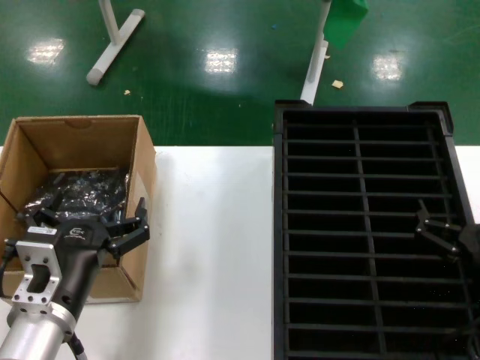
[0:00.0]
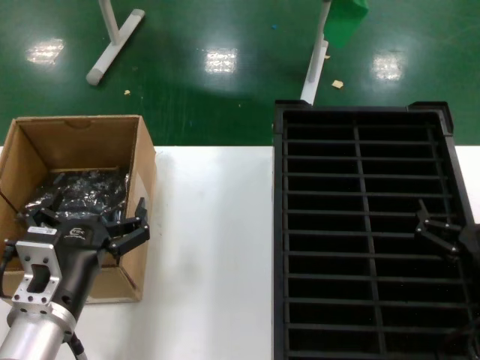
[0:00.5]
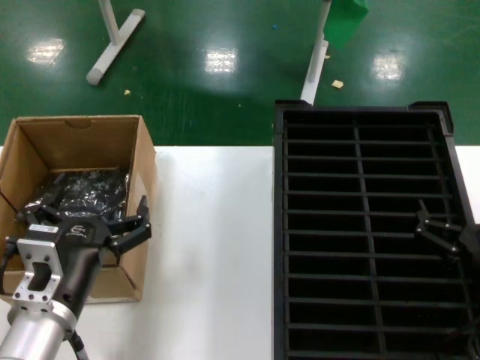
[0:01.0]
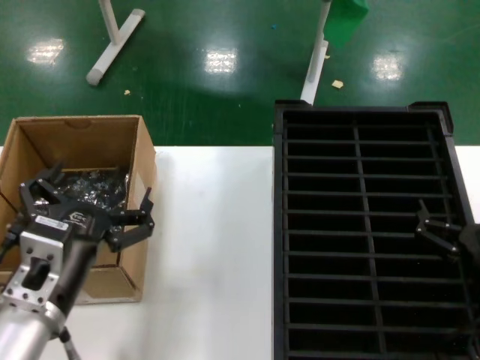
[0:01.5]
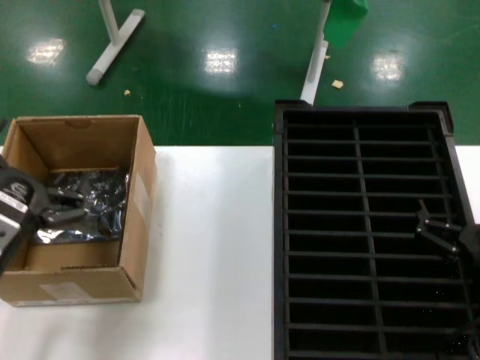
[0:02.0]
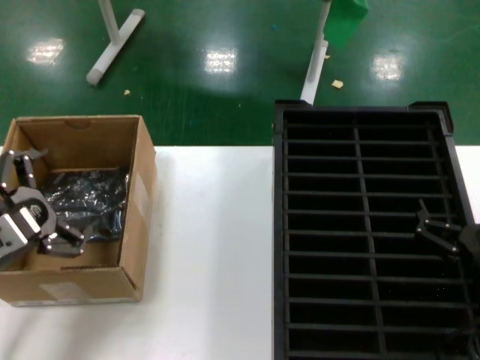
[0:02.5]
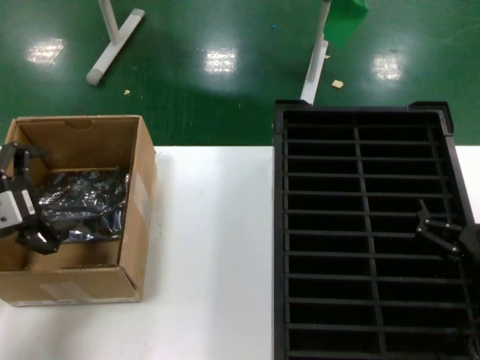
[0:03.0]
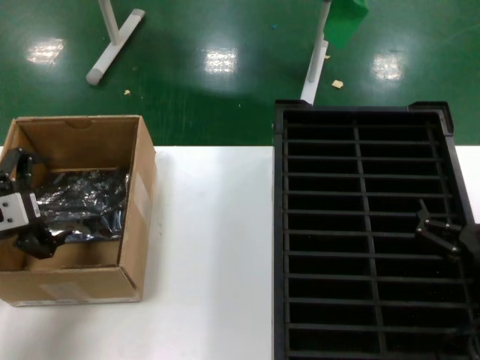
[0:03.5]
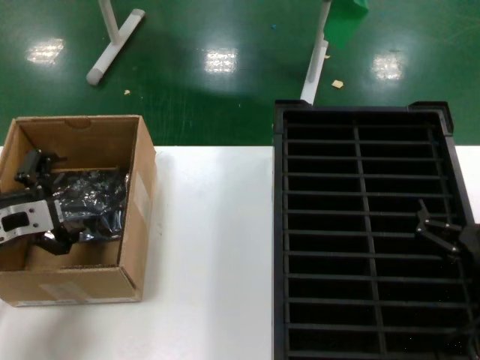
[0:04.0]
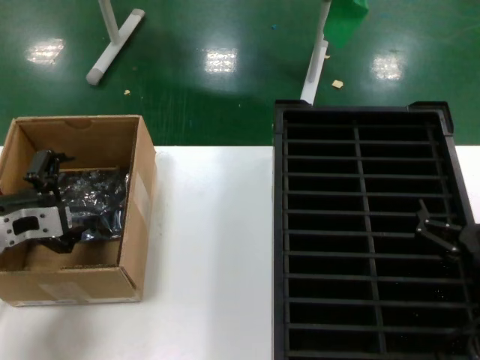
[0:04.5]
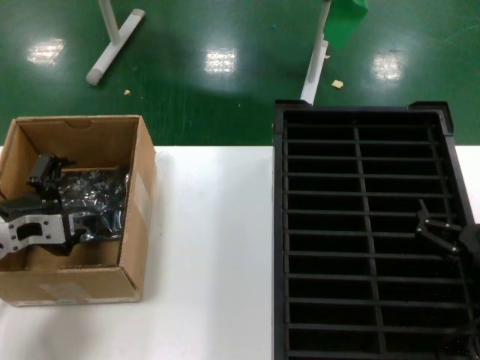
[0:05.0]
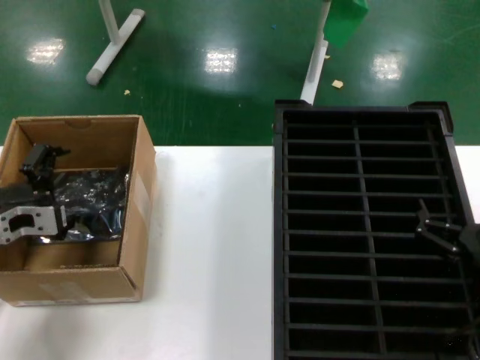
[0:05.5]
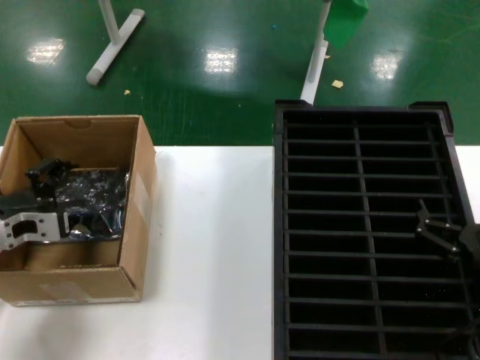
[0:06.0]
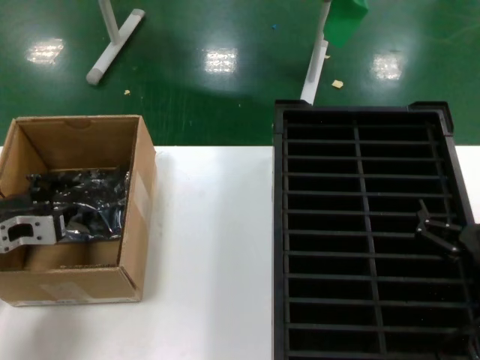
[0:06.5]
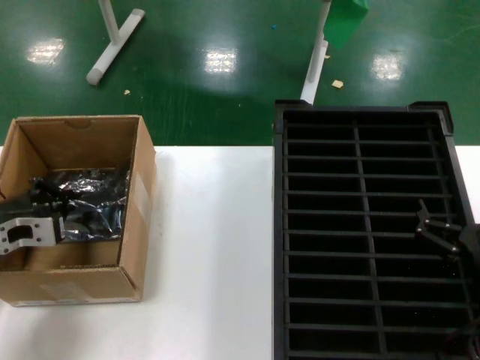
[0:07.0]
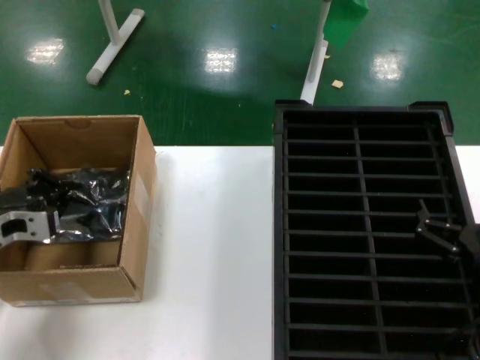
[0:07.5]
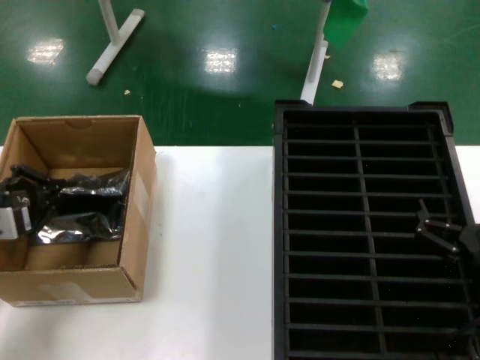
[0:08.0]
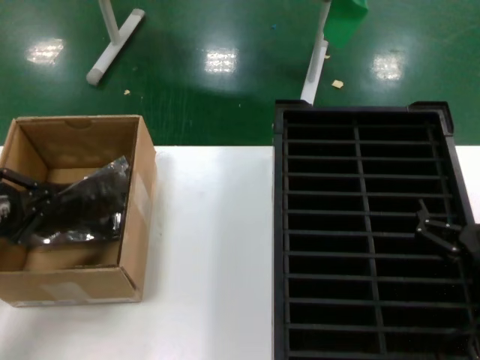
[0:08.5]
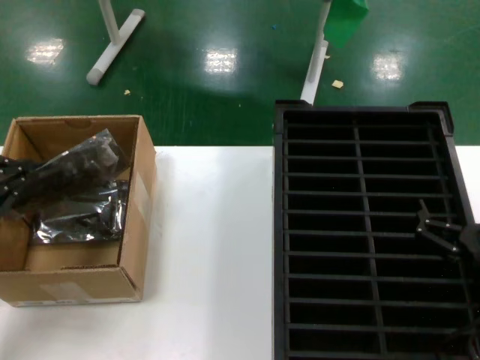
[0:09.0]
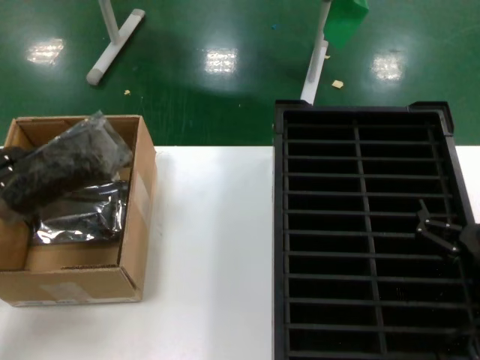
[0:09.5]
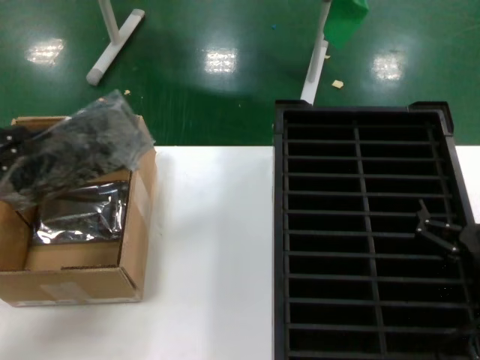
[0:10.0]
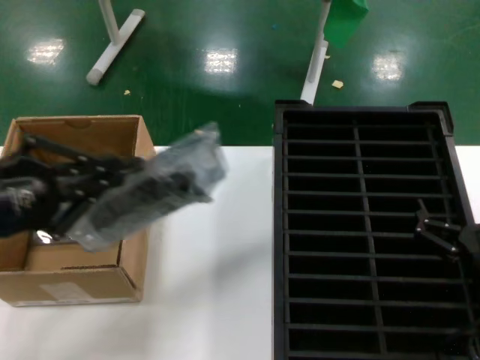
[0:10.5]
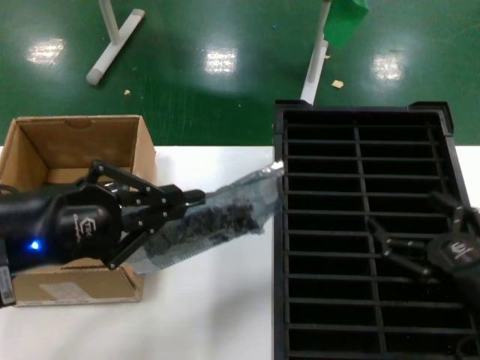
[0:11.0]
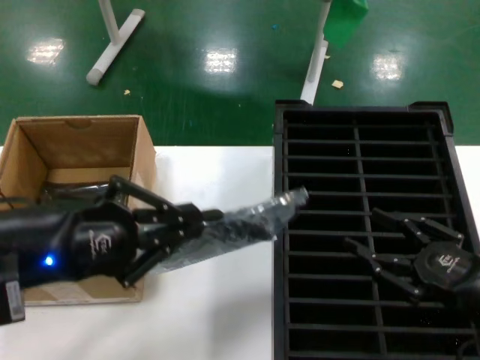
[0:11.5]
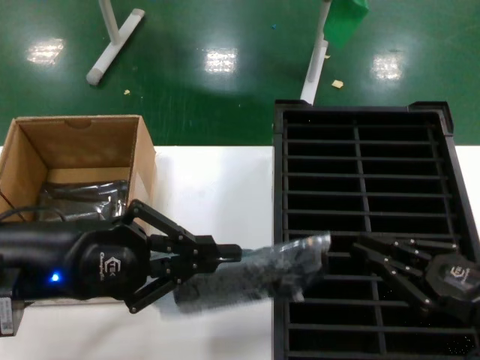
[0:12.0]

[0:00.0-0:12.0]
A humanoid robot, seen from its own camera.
Task of the whole recording: take out graphics card from box remove packaging put into black container.
Step, 0:00.0 to 0:07.0: Grasp the bag.
Step, 0:07.5 to 0:10.5: Lift the bag.
0:00.0 to 0:02.0: The left hand shifts approximately 10 cm upward and to the left.
0:02.0 to 0:04.0: The left hand moves forward and to the left, approximately 15 cm.
0:04.0 to 0:06.0: The hands stay close to where they were, moving slightly.
0:06.0 to 0:08.0: The left hand changes place by some 5 cm.
0:08.0 to 0:10.0: The left hand shifts about 15 cm upward, backward and to the left.
0:10.0 to 0:12.0: The right hand heads to the right, covering some 10 cm. Meanwhile the left hand travels to the right by roughly 15 cm.

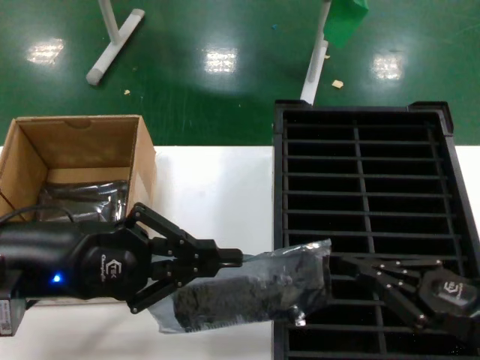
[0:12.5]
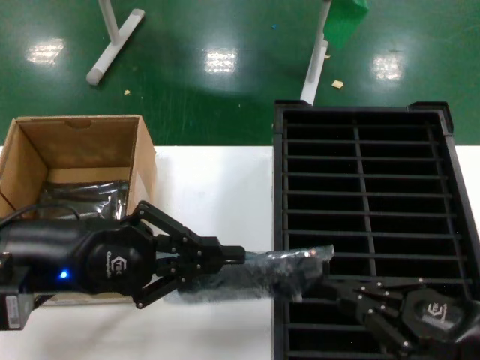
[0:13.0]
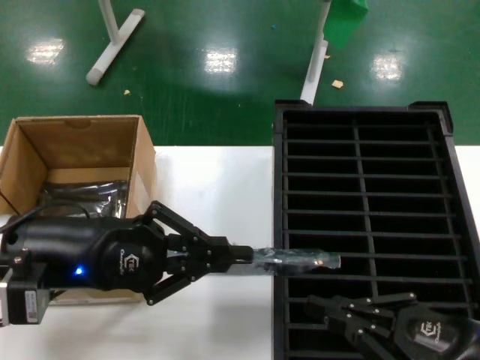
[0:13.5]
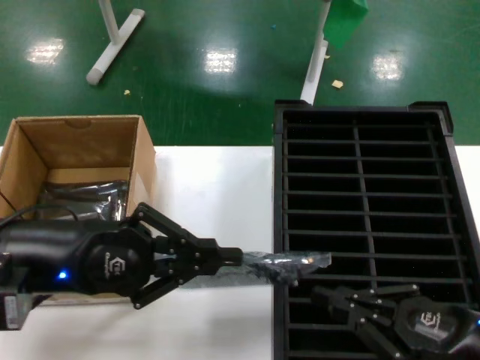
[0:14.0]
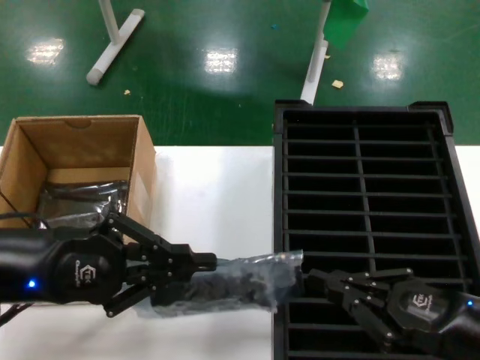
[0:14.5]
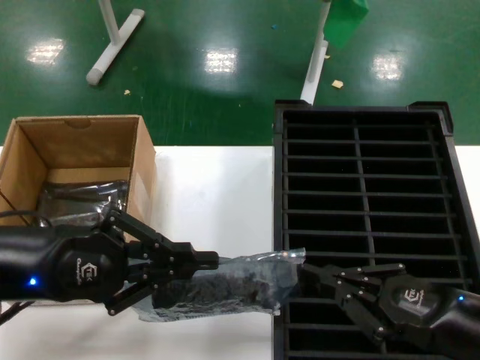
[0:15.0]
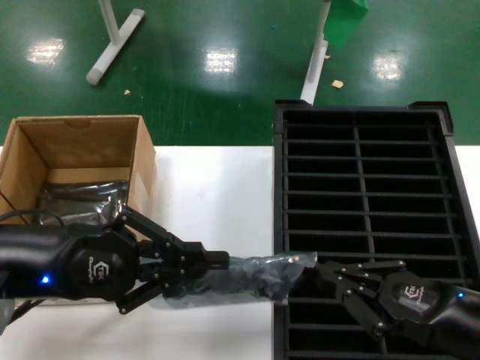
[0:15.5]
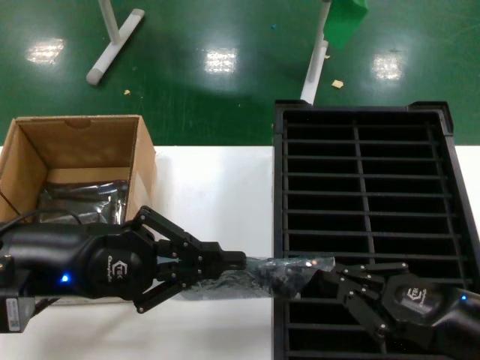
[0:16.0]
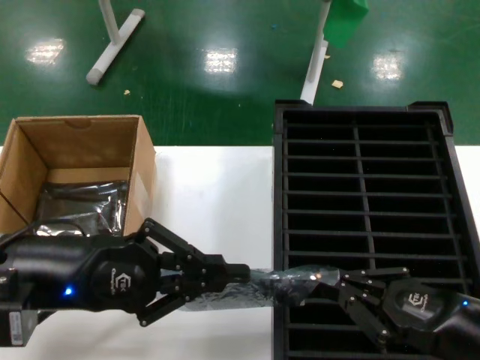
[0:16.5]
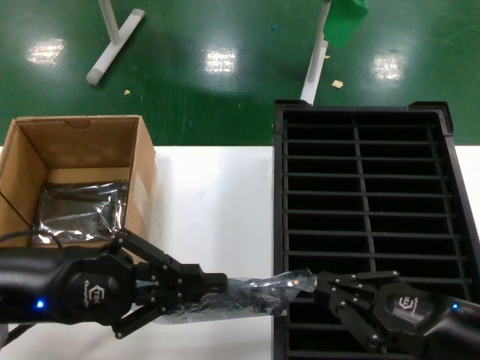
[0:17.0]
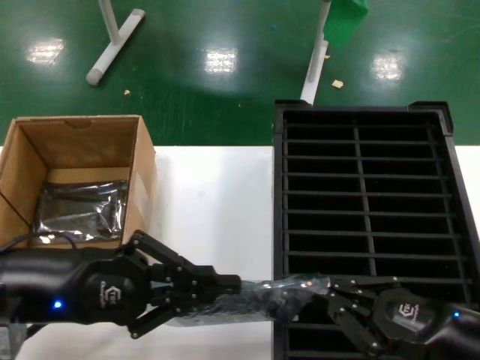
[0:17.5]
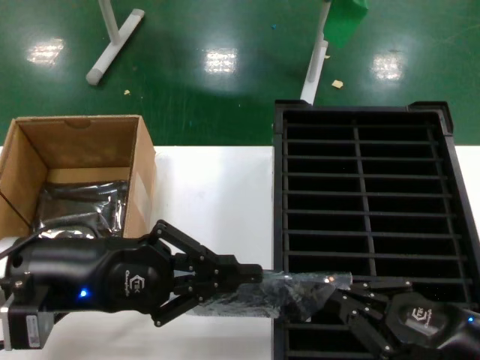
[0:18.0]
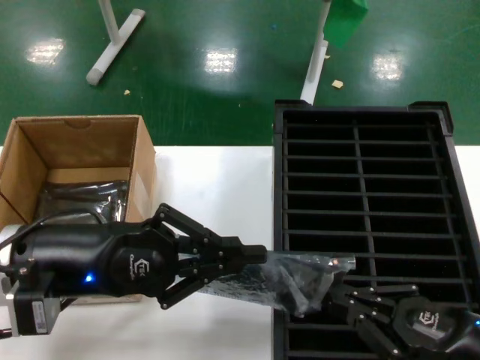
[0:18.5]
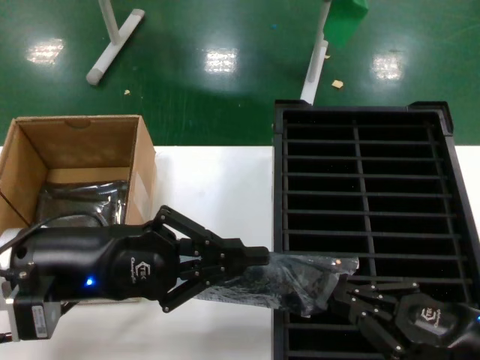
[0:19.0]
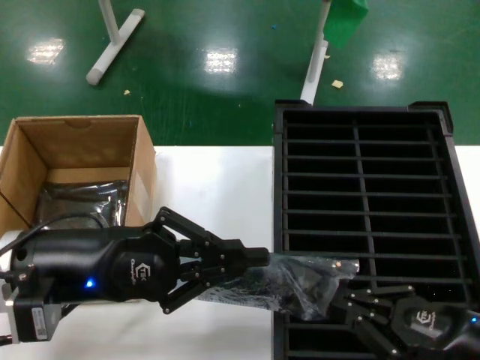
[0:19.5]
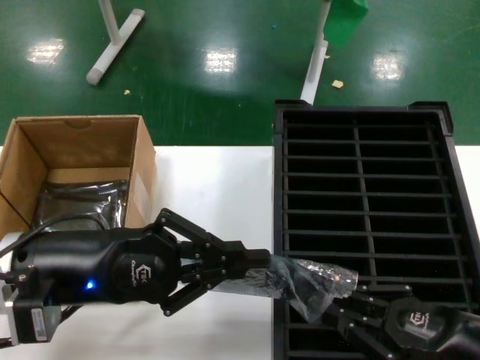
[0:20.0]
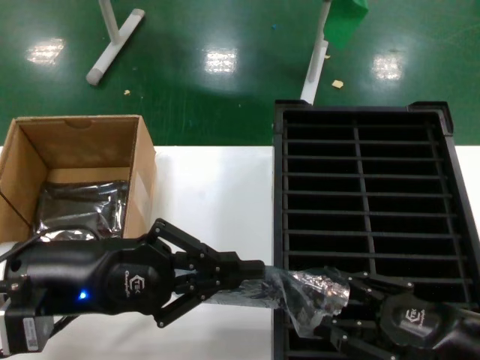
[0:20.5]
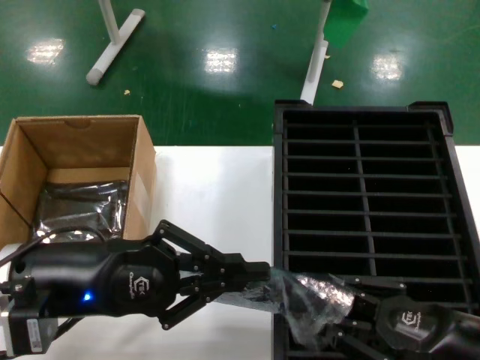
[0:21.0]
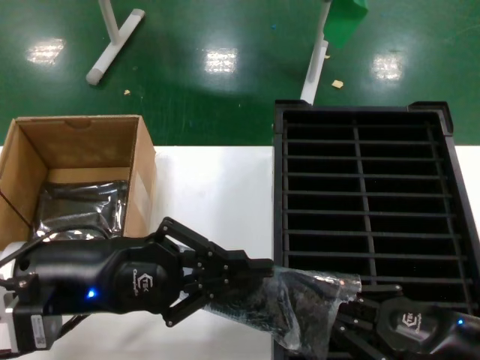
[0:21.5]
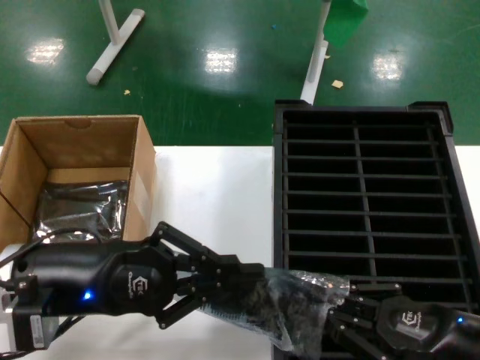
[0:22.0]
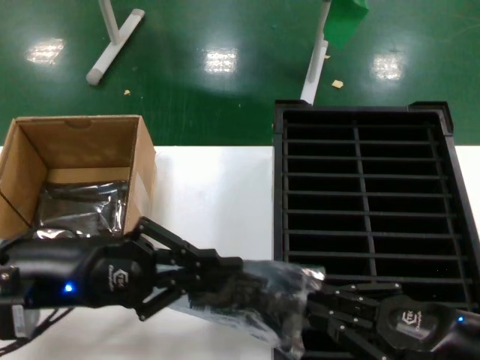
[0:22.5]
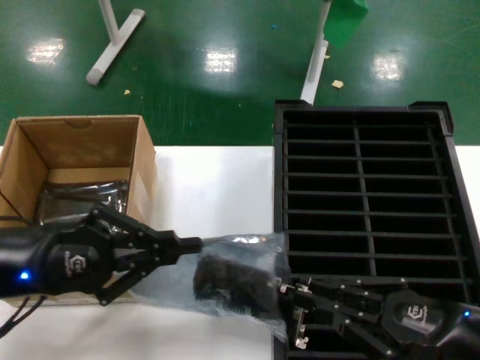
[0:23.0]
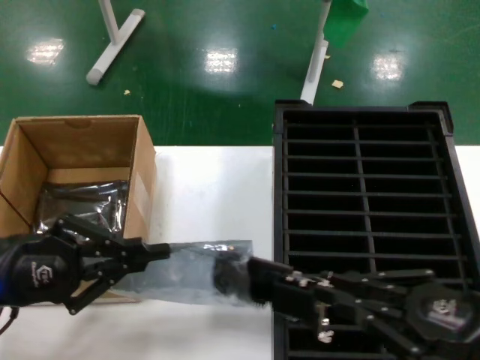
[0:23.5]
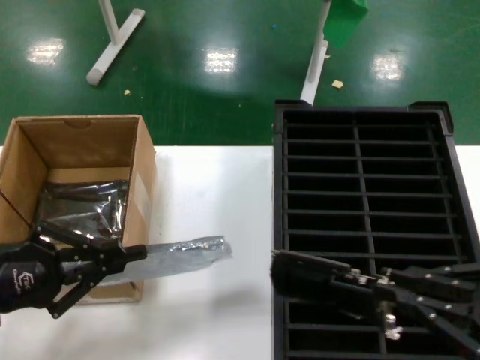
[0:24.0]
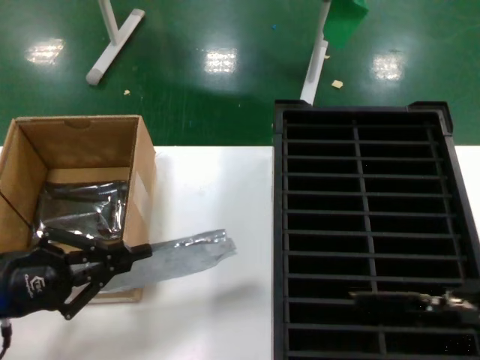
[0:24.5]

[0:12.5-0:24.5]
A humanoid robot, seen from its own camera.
Task of the whole recording: take out graphics card from box remove packaging put into black container.
Step, 0:12.5 to 0:23.5: Take out the hard disk of the bag.
0:12.5 to 0:16.5: The hands make only small movements.
0:16.5 to 0:22.5: The hands stay close to where they were, moving slightly.
0:22.5 to 0:24.5: The right hand is displaced upward by approximately 20 cm. Meanwhile the left hand is displaced to the left and downward by approximately 10 cm.

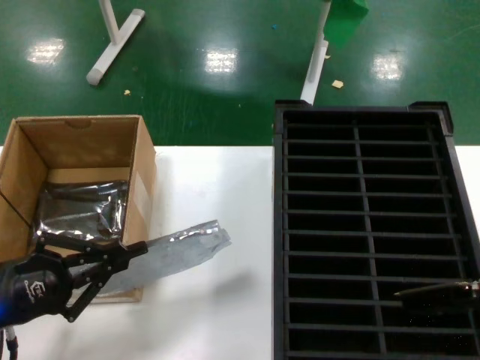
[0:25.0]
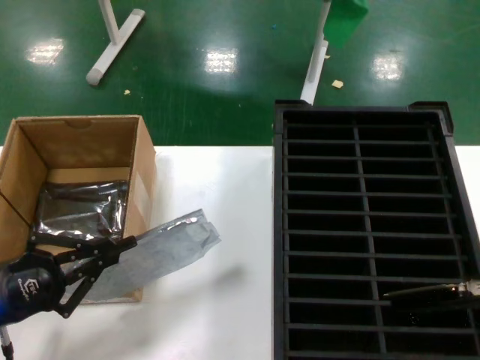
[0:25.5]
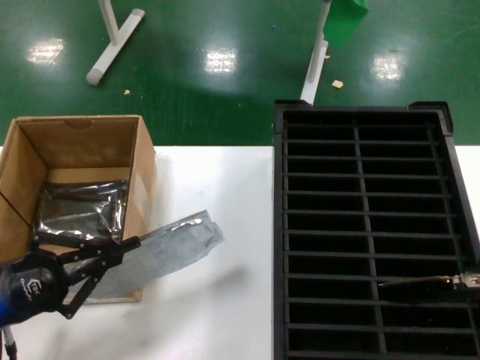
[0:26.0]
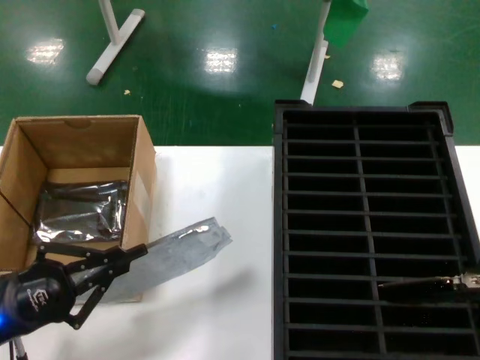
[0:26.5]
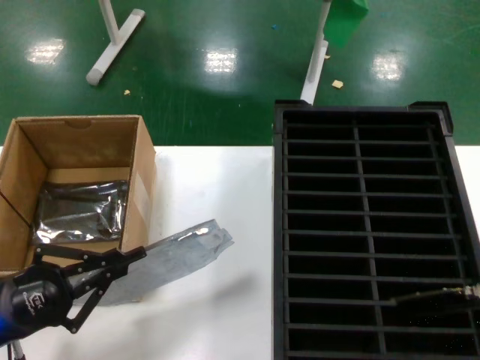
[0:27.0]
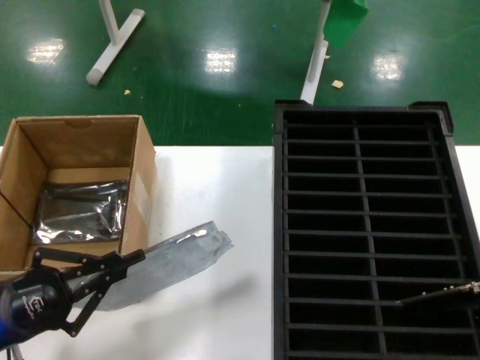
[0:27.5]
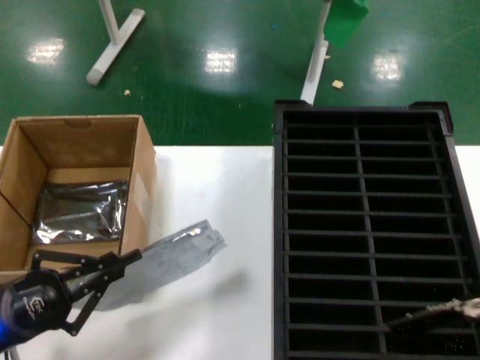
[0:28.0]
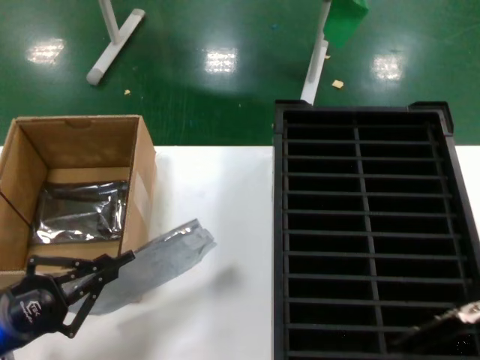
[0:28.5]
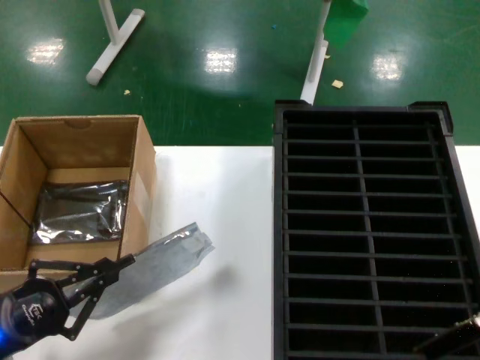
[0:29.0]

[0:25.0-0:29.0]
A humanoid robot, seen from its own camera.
Task of the whole recording: take out graphics card from box remove packaging put into black container.
0:25.0 to 0:27.0: The hands stay close to where they were, moving slightly.
0:27.0 to 0:29.0: The right hand is displaced to the left by approximately 10 cm.
